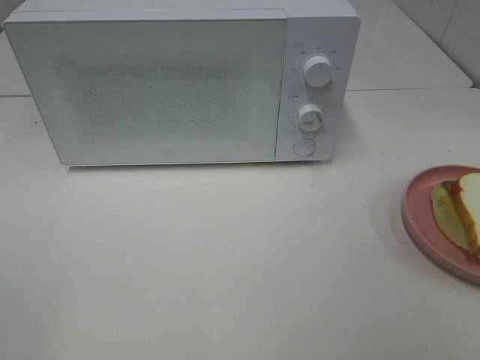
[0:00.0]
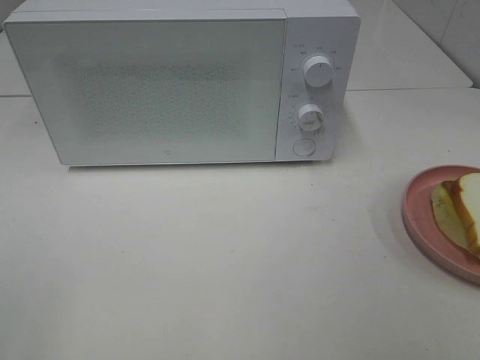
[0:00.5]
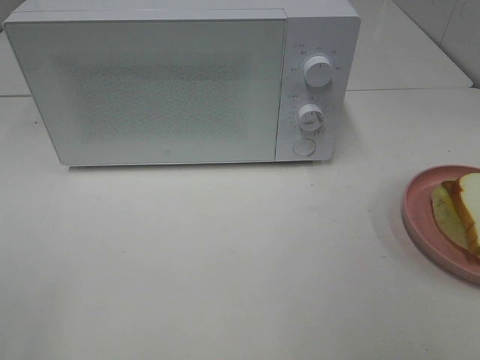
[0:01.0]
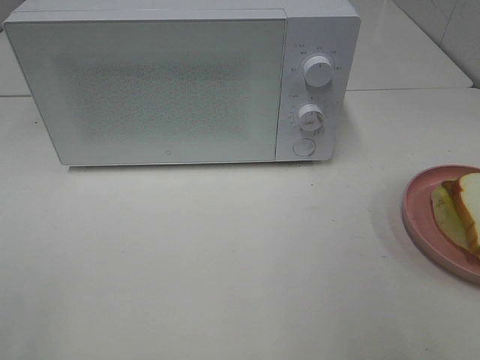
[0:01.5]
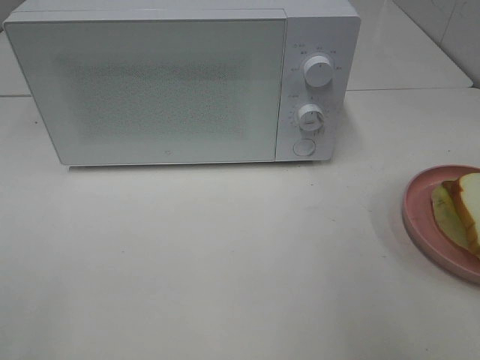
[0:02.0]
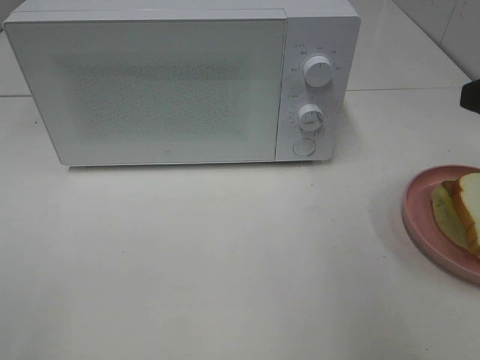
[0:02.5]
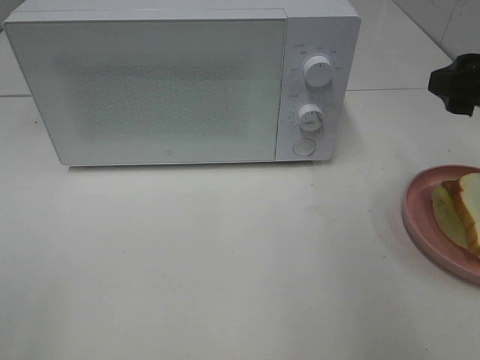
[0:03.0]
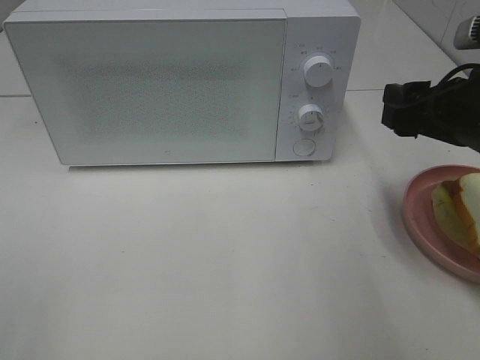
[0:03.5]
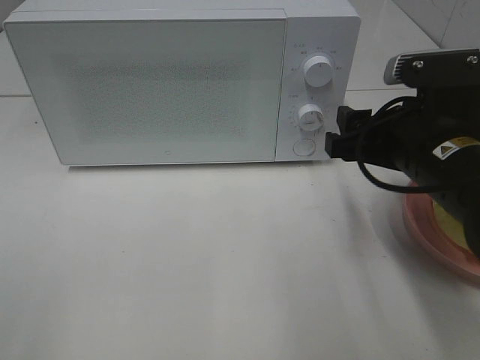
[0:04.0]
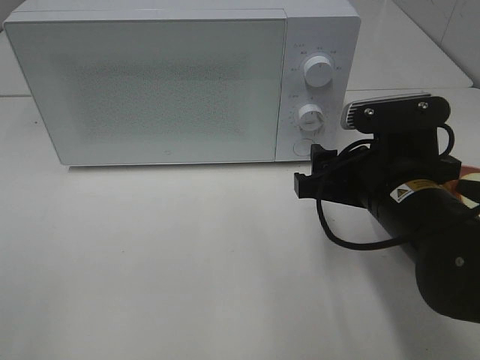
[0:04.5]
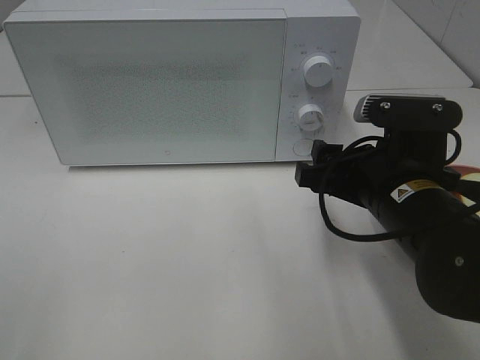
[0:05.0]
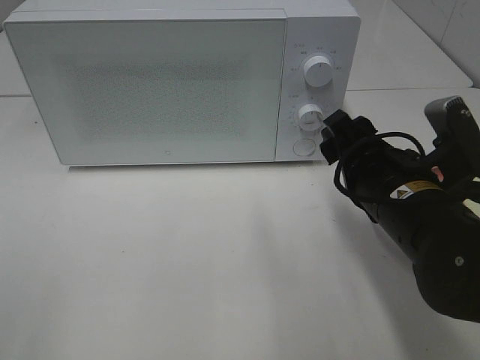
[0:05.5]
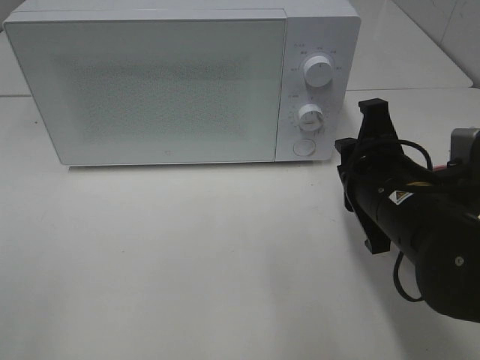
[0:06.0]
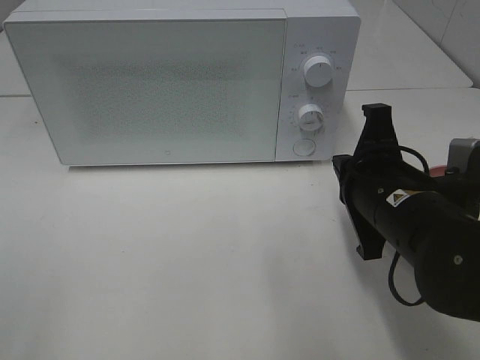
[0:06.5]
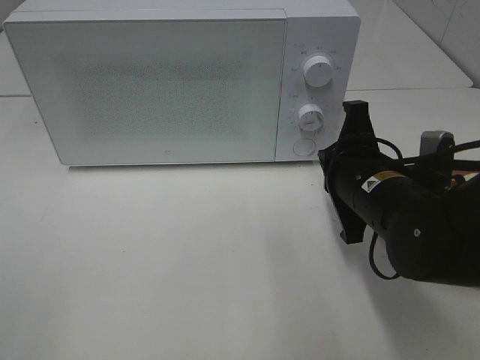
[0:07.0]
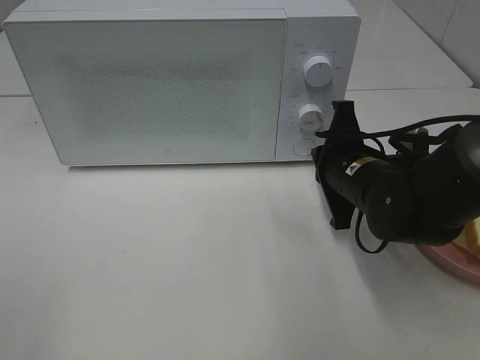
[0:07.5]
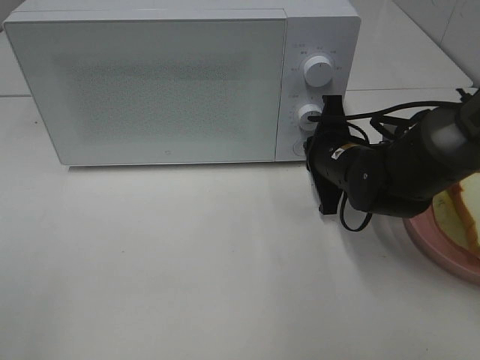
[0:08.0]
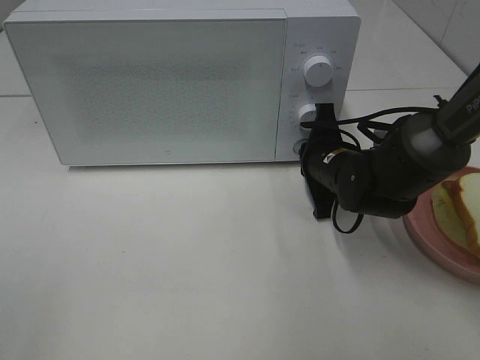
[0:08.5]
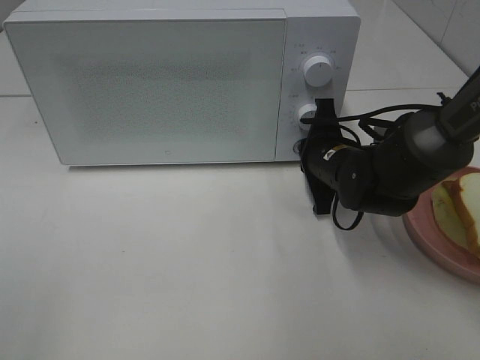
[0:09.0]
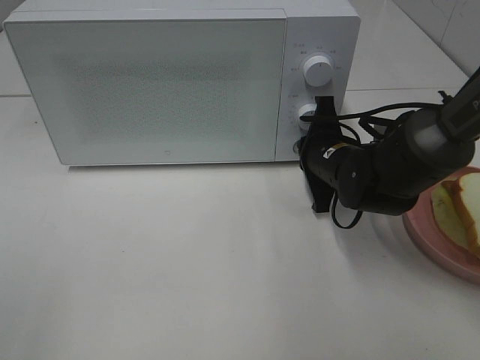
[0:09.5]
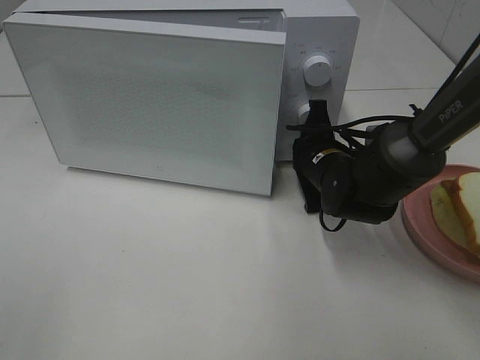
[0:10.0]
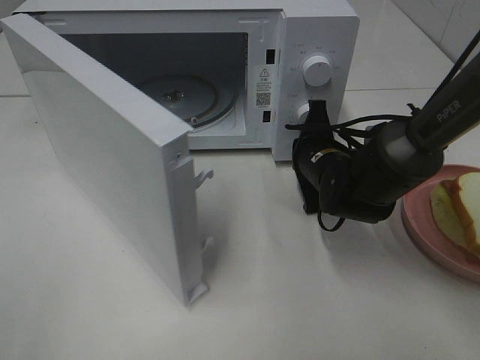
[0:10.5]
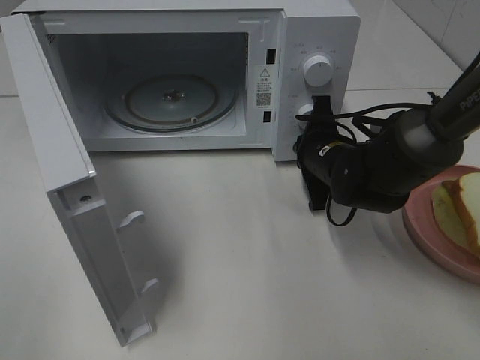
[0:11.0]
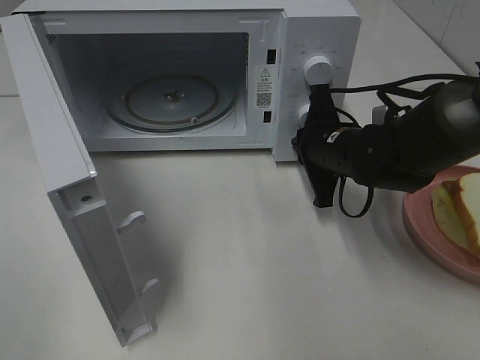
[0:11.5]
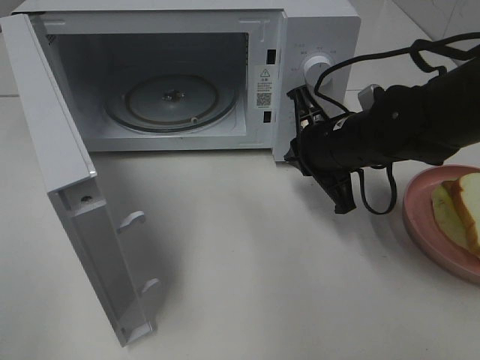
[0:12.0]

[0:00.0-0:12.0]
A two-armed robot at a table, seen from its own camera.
Task of the whole recording: Heat Sandwich.
Step, 0:00.0 to 0:11.5: Right hand: press the switch.
0:02.0 to 0:04.0: The right gripper travels downward, to the left and forward by about 15 cm.
0:04.0 to 0:06.0: The right gripper closes up.
0:06.0 to 0:08.0: The right gripper goes roughly 15 cm forward and downward.
0:08.0 to 0:10.0: The grippers stay close to where they were, moving slightly.
0:10.0 to 0:12.0: The right gripper moves upward, roughly 5 cm.

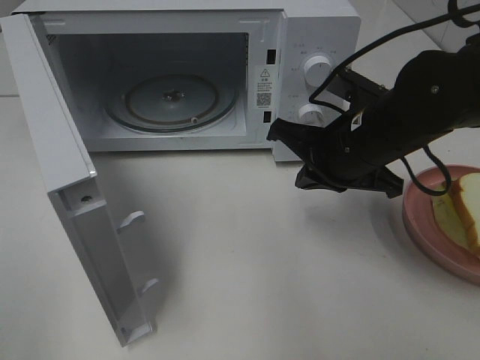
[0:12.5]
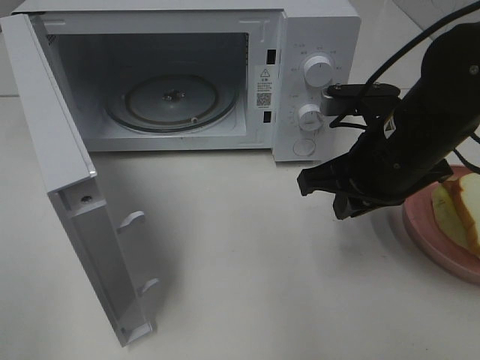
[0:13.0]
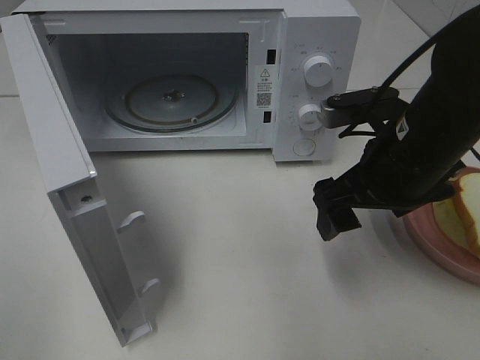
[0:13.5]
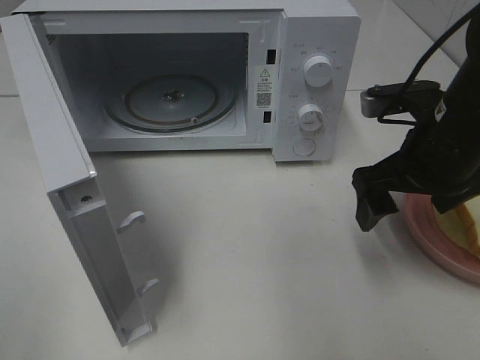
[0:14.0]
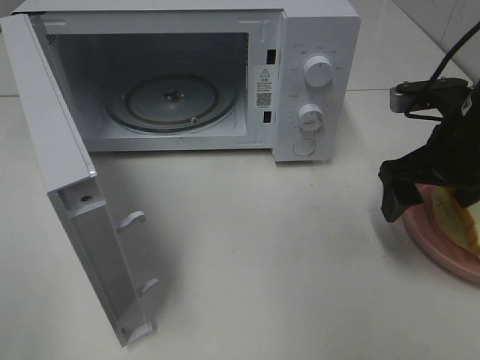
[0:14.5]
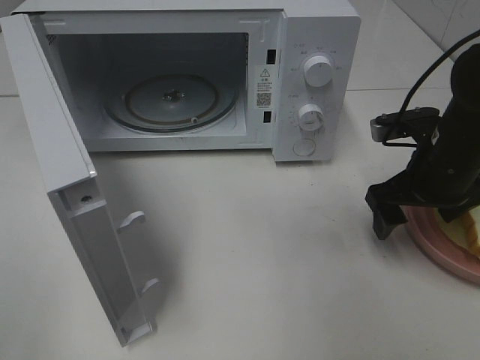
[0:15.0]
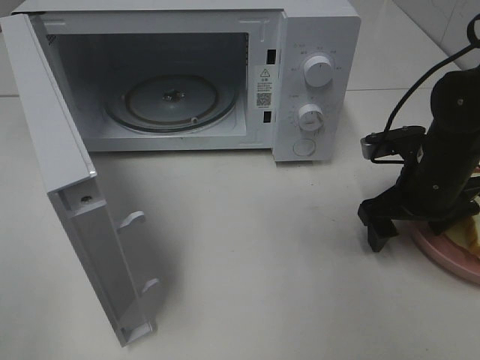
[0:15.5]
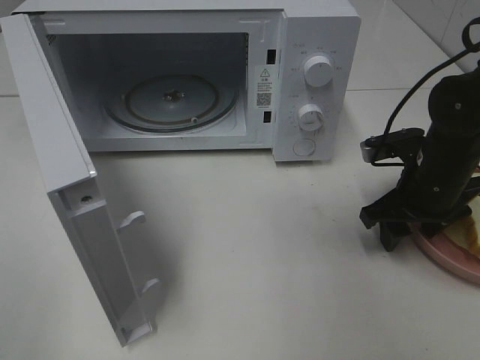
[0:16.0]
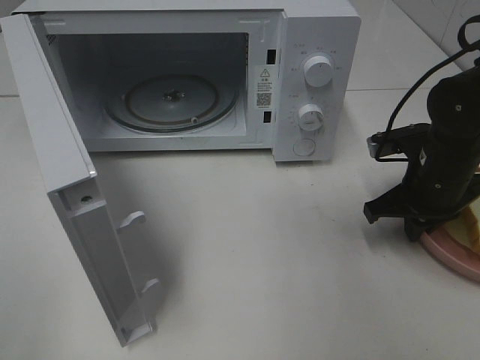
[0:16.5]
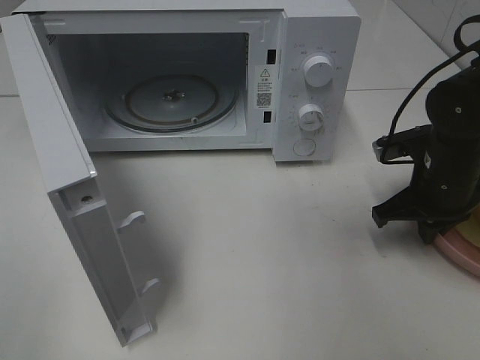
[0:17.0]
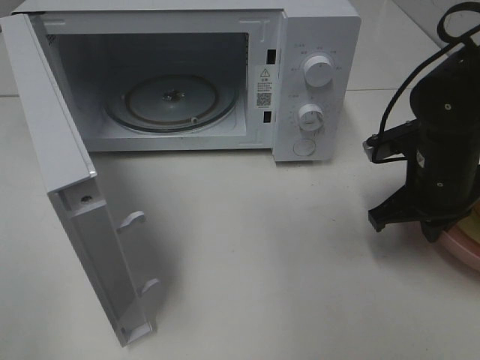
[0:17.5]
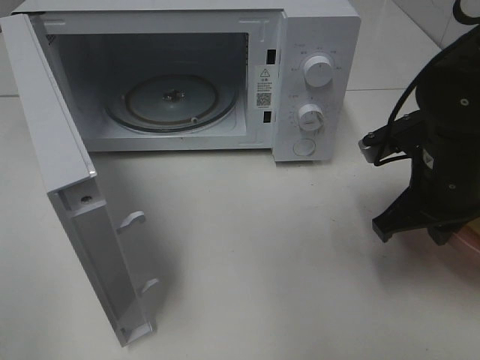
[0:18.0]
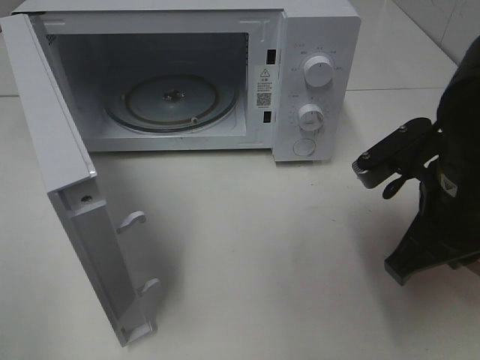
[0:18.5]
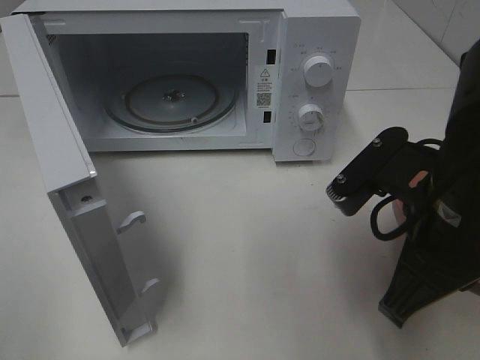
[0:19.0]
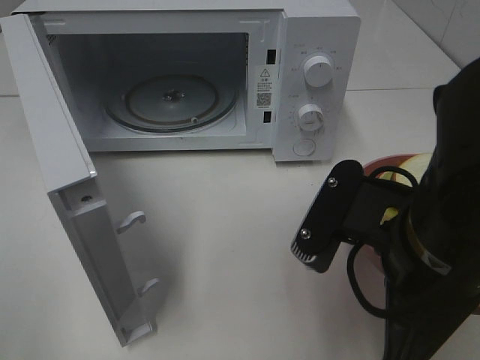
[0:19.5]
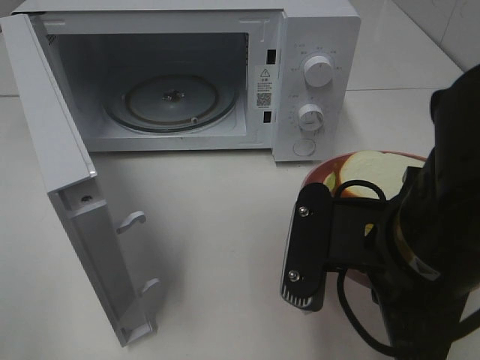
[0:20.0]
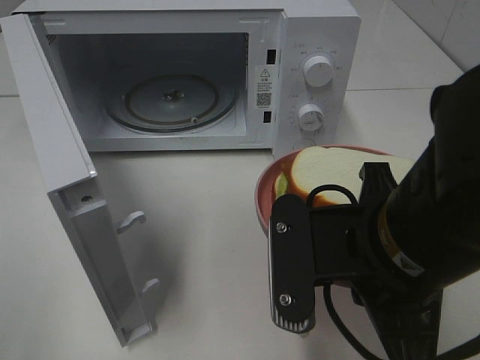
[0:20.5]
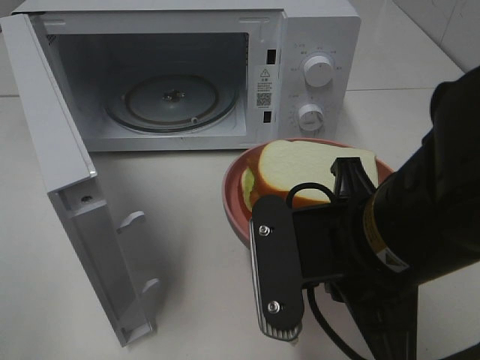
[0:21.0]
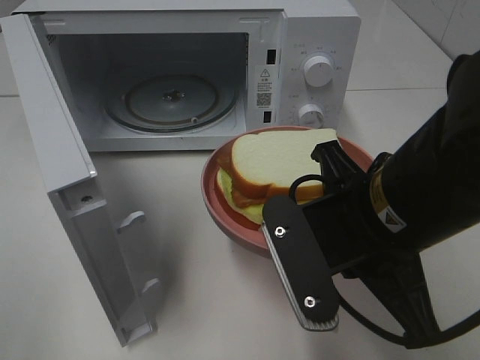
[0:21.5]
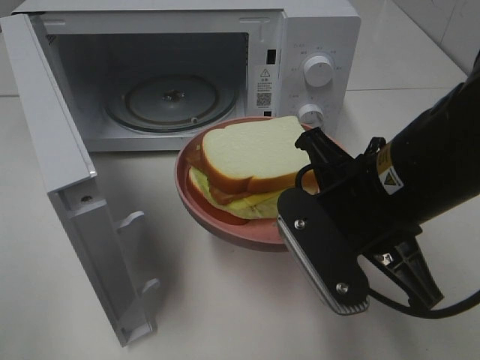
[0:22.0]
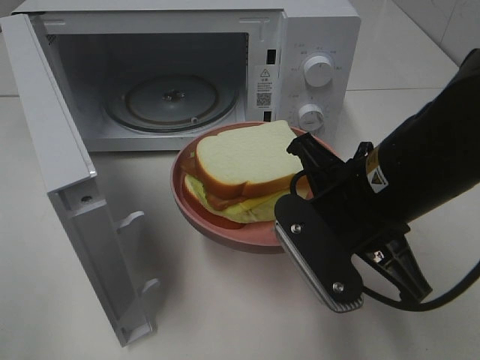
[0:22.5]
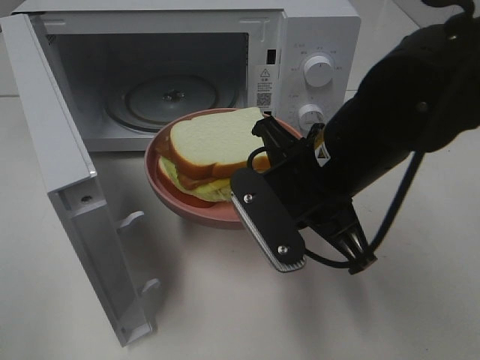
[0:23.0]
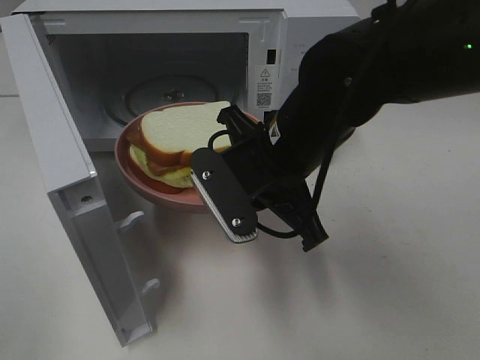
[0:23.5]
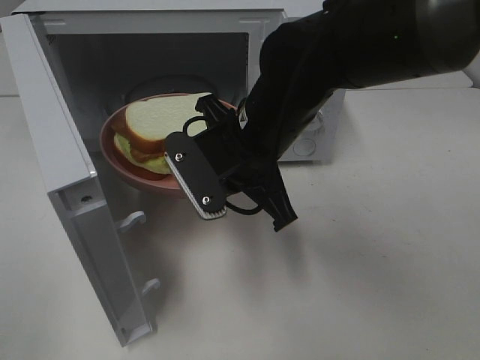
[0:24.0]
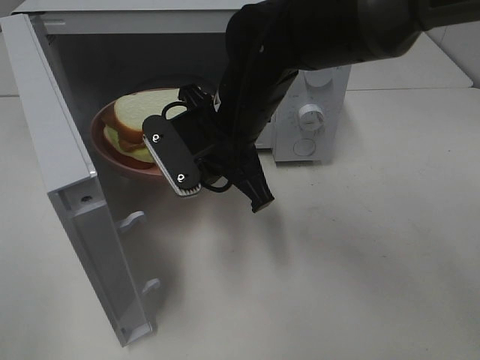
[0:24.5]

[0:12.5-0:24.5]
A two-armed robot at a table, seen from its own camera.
Task of the whole recording: Heat Sandwich.
Step, 0:12.5 to 0:16.5: Right hand: grab the plate with the sandwich.
0:12.5 to 0:14.5: The right gripper heads to the right, covering roughly 10 cm, and opens its fingers.
0:14.5 to 0:16.5: The right gripper moves downward, approximately 10 cm, and closes its fingers.
0:16.5 to 0:18.5: The right gripper heads backward, upward and to the left, covering some 15 cm.
0:18.5 to 0:20.5: The right gripper heads to the left and backward, covering some 10 cm.
0:20.5 to 0:22.5: The right gripper goes some 5 cm forward.
0:22.5 to 0:24.5: The right gripper moves to the left and forward, approximately 15 cm.

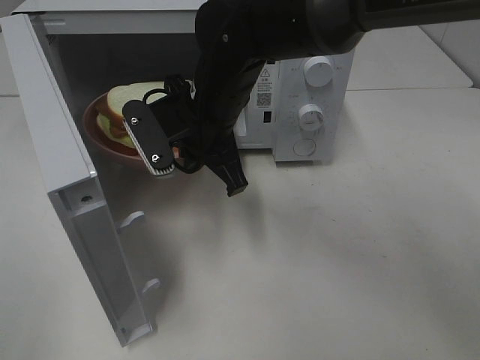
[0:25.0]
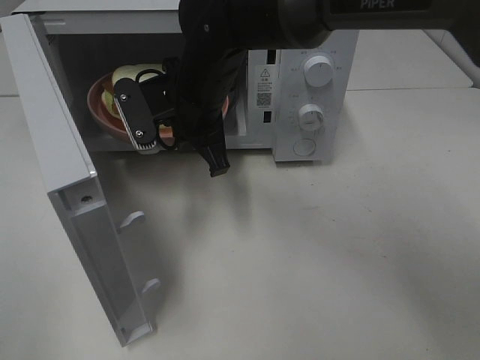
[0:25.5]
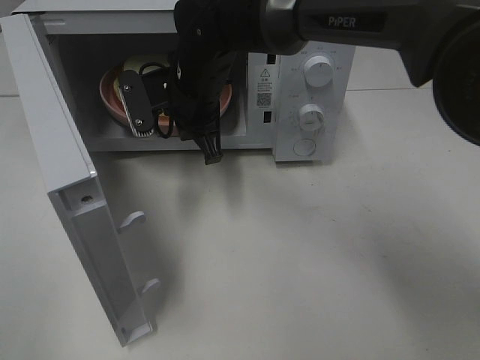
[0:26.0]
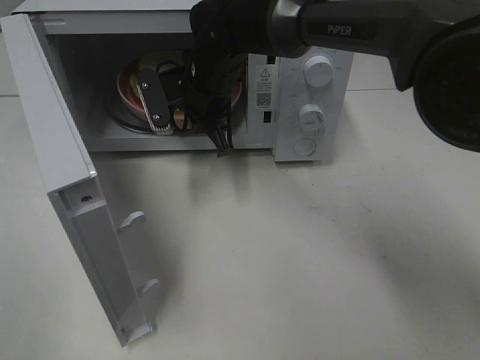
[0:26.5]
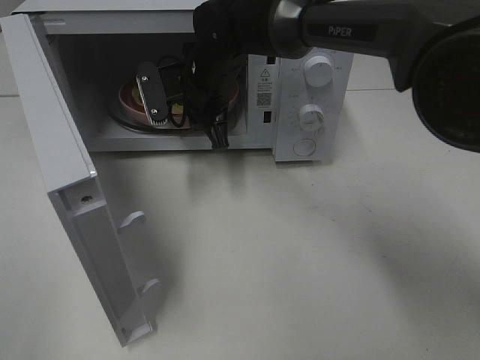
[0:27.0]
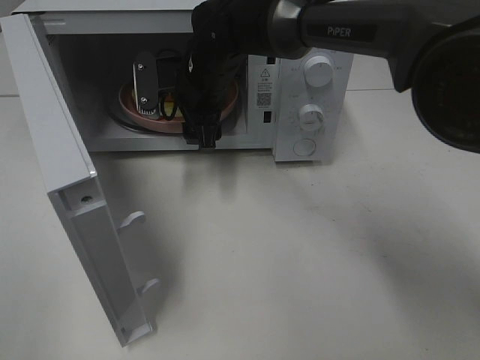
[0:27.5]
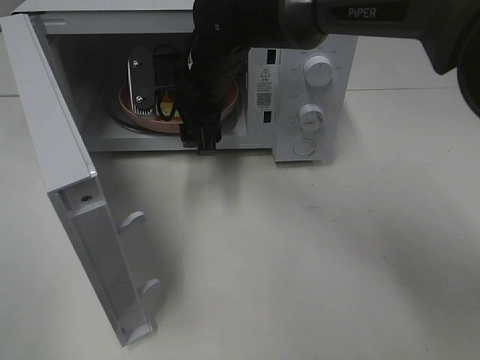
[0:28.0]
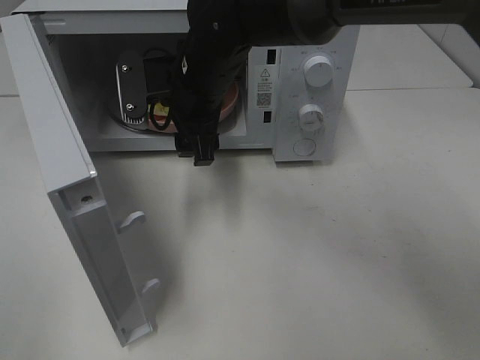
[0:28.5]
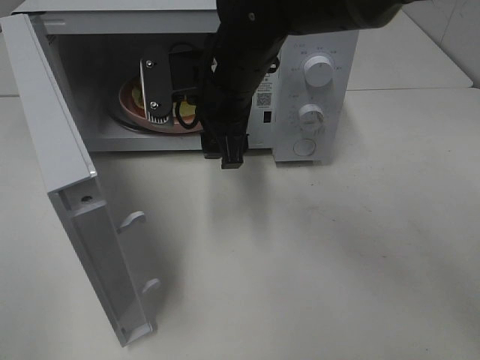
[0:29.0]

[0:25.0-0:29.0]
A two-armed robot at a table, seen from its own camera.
Task of the whole recording: Heat Sandwich.
Step, 0:25.0 to 0:28.5: Right hand: place the plate in the microwave.
0:25.0 to 0:27.0: The right gripper moves forward, approximately 10 cm.
0:27.0 to 0:29.0: The right gripper is displaced backward by roughly 10 cm, and opens its fingers.
